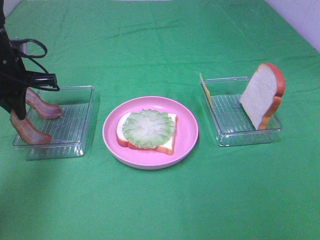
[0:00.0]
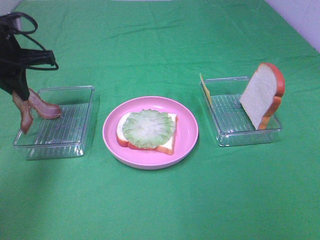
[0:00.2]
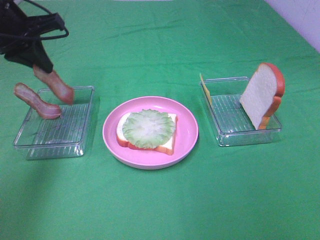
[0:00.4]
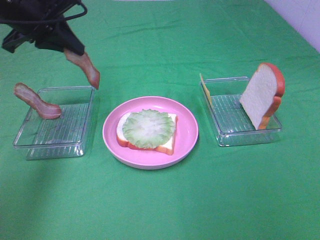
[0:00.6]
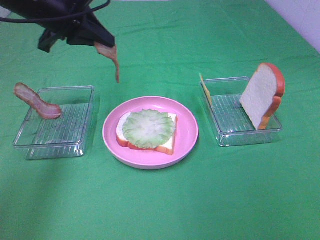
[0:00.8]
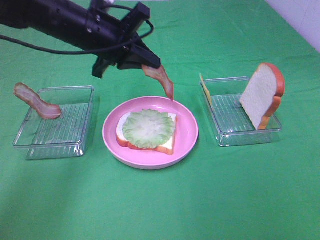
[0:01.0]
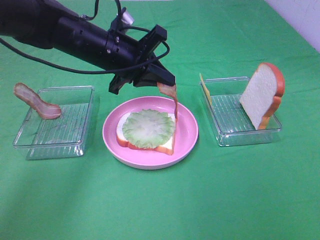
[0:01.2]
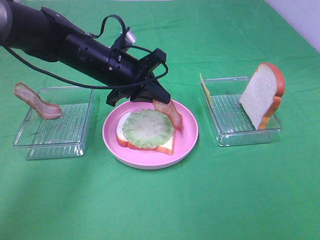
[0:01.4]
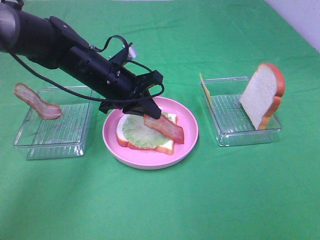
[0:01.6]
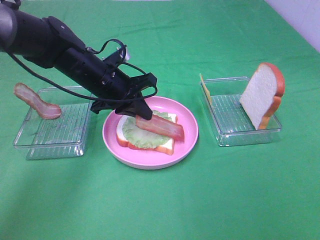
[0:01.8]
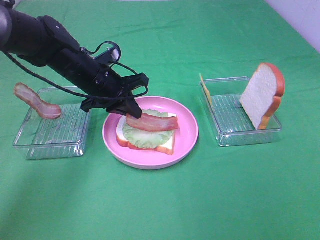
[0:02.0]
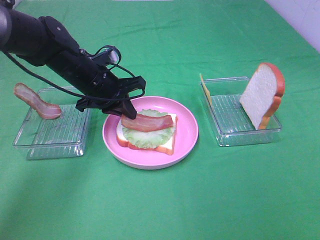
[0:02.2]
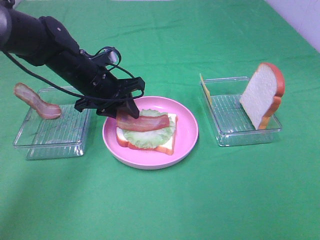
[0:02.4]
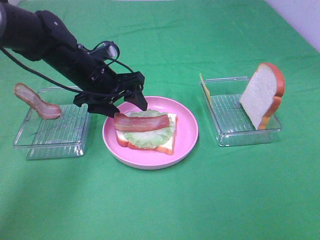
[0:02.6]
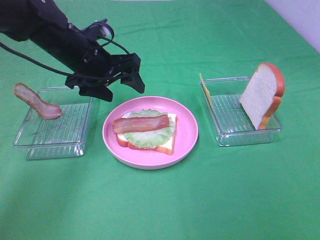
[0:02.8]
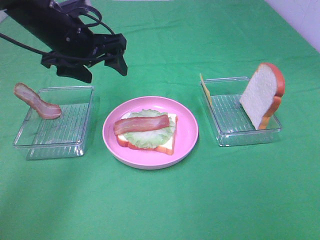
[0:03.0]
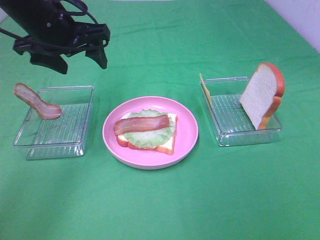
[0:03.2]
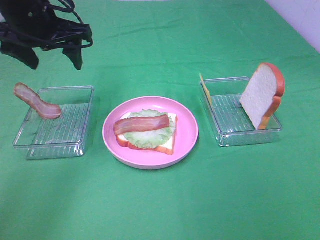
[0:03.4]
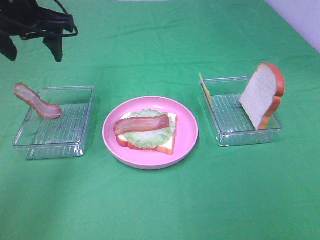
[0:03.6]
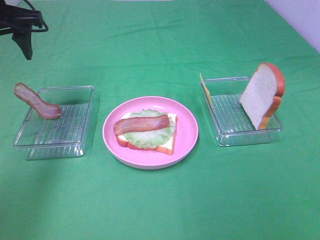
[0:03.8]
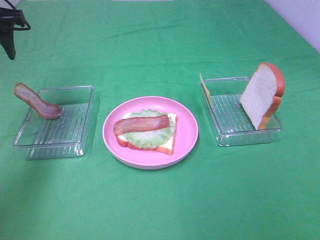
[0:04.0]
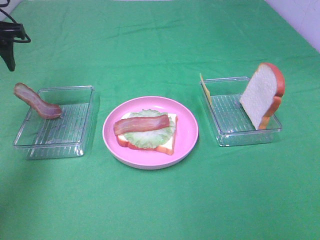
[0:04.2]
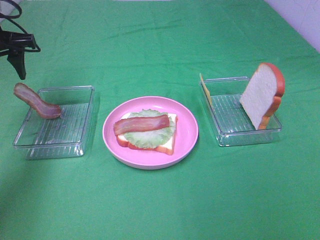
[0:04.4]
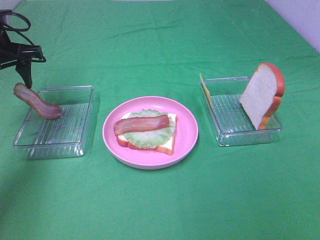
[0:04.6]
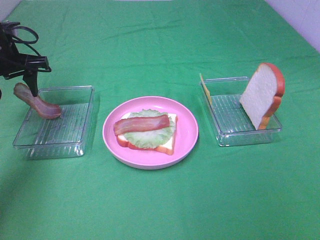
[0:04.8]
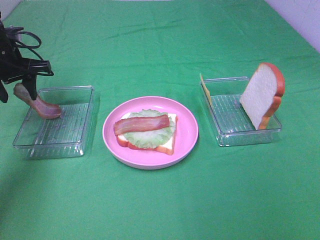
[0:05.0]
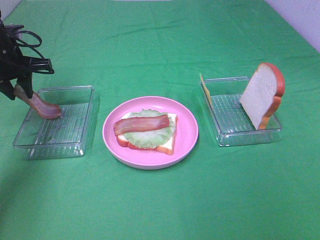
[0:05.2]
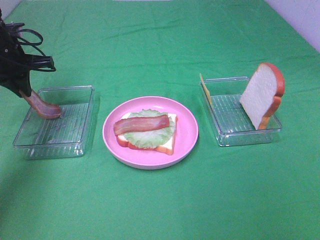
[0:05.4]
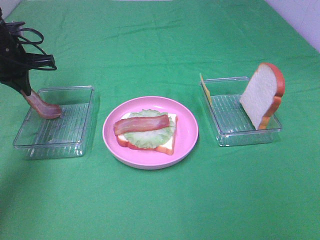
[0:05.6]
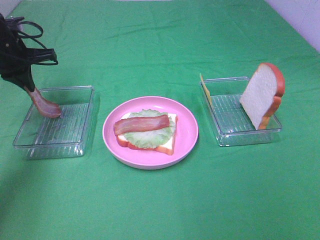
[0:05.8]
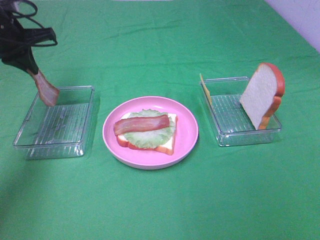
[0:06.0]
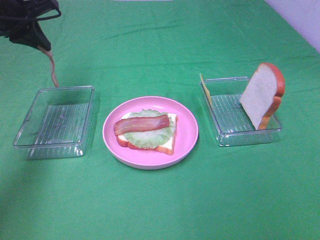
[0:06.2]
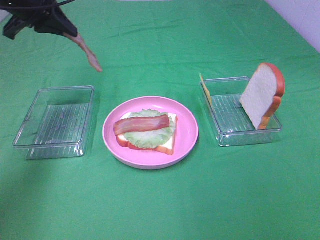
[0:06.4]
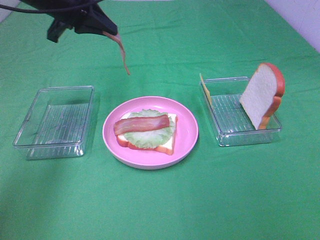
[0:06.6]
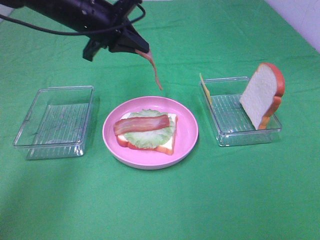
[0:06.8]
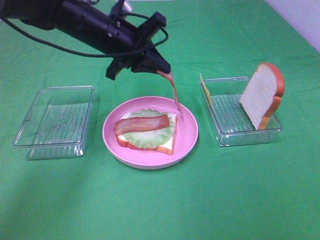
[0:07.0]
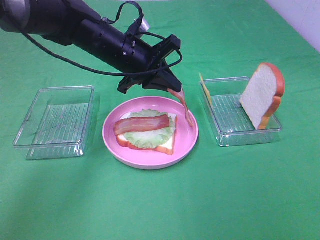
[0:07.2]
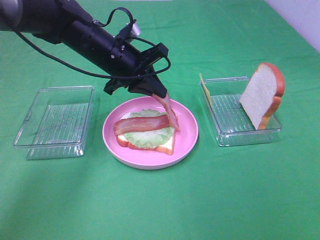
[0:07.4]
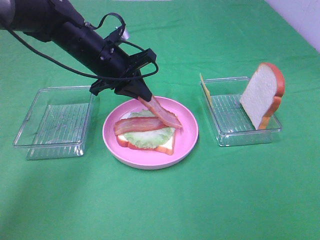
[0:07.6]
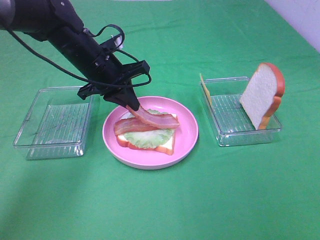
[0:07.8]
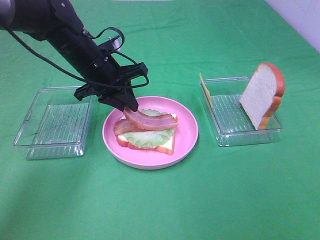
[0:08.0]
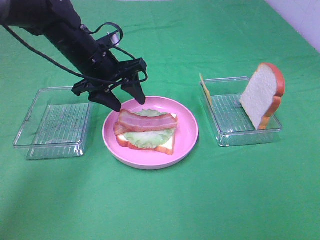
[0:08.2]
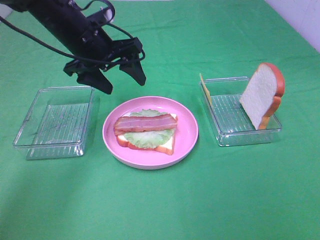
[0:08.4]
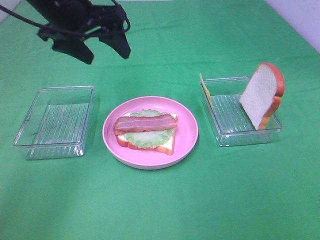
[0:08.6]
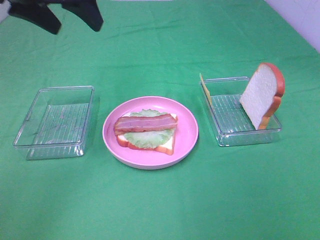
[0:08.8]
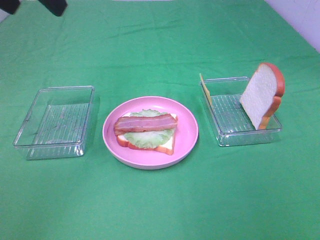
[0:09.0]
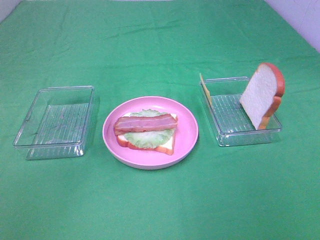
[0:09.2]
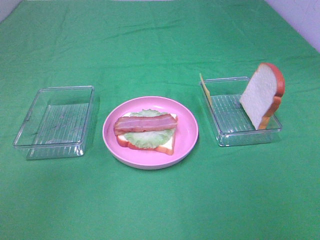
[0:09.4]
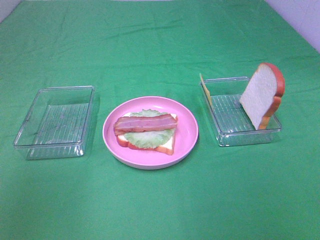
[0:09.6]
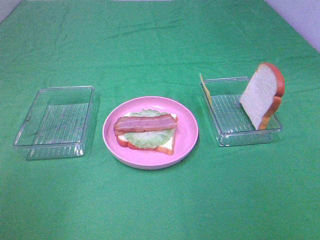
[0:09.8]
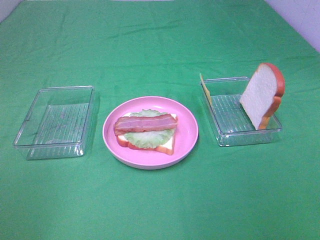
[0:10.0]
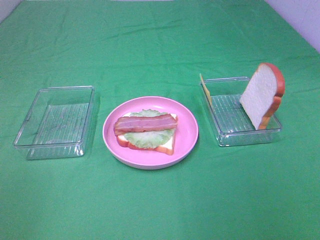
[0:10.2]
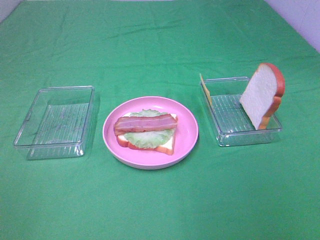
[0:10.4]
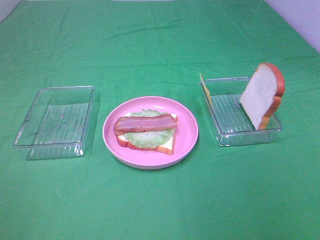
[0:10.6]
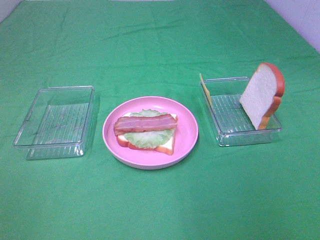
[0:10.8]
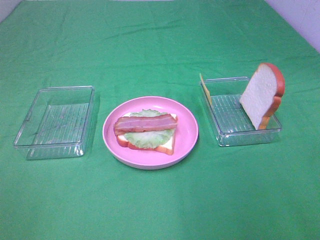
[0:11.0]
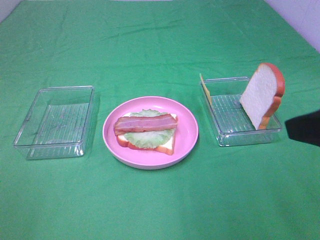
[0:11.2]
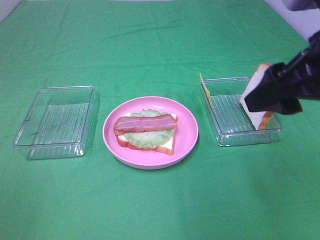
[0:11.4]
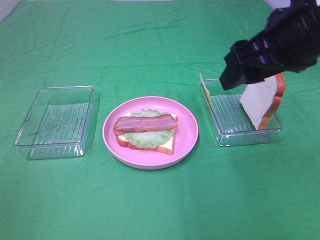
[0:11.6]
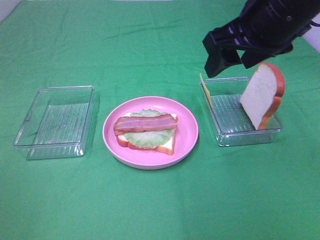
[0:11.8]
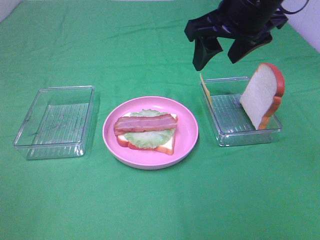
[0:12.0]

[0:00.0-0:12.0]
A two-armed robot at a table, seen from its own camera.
Task of the whole recording: Make sandwiches.
Step, 0:00.0 to 0:02.8: Left hand:place bacon on lettuce slice.
Step, 0:03.0 to 0:05.6: Left hand:grab the bacon.
Step, 0:05.8 to 0:08.2: Left hand:place bacon on bacon.
0:00.0 to 0:01.6: The left gripper is displaced to the right by approximately 15 cm.
0:01.6 to 0:03.0: The left gripper heads upward and to the left, covering some 10 cm, and opens its fingers.
0:03.0 to 0:04.4: The left gripper travels to the left by some 15 cm.
0:04.4 to 0:06.0: The left gripper closes up.
0:06.0 to 0:07.6: The left gripper shifts about 15 cm to the right.
0:07.6 to 0:09.0: The left gripper travels upward and backward by roughly 25 cm, and opens its fingers.
0:09.0 to 0:10.4: The left gripper moves backward and to the left, approximately 35 cm.
0:10.4 to 0:12.0: The right gripper goes about 40 cm forward and to the left.

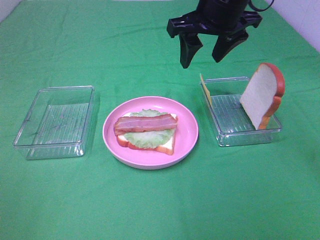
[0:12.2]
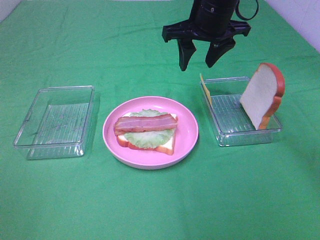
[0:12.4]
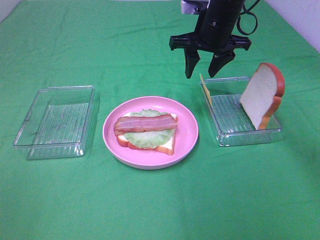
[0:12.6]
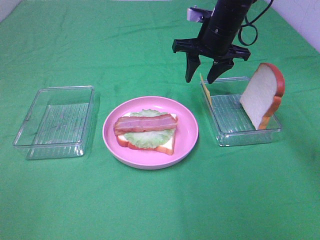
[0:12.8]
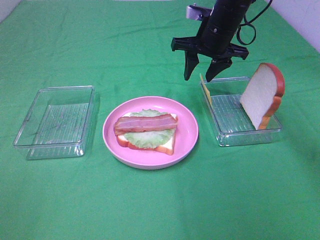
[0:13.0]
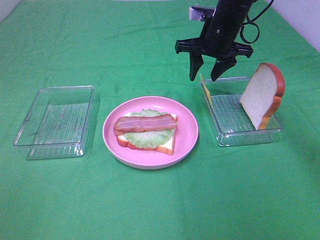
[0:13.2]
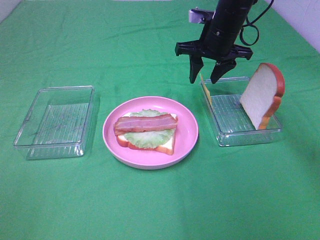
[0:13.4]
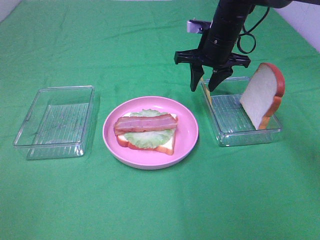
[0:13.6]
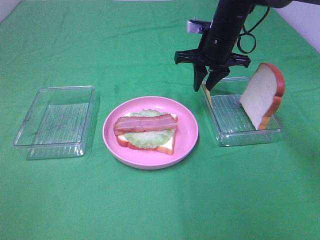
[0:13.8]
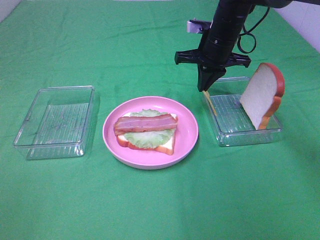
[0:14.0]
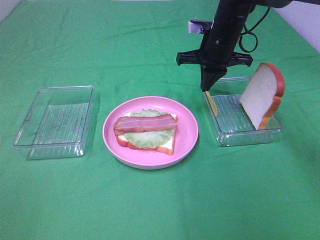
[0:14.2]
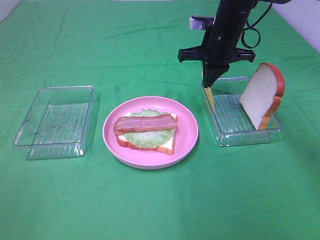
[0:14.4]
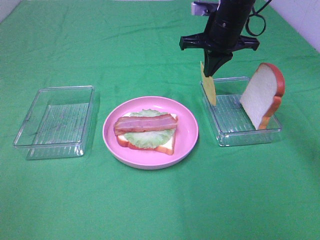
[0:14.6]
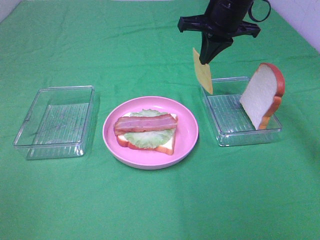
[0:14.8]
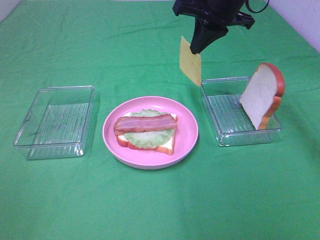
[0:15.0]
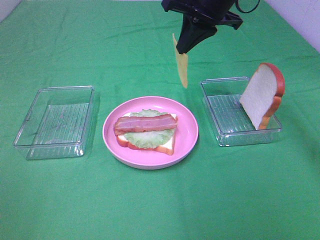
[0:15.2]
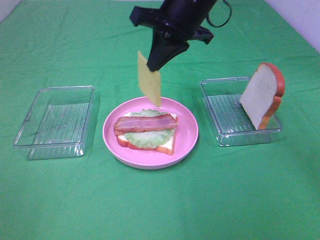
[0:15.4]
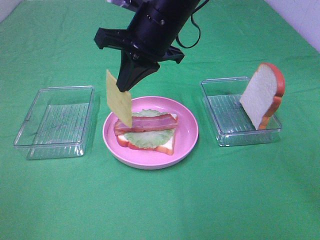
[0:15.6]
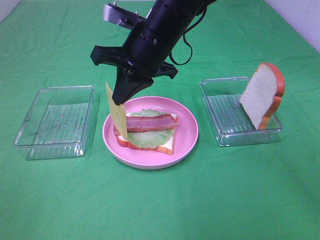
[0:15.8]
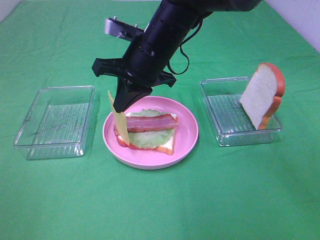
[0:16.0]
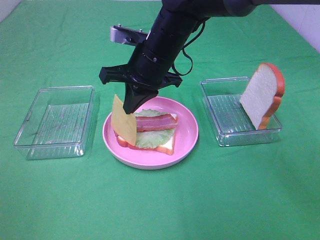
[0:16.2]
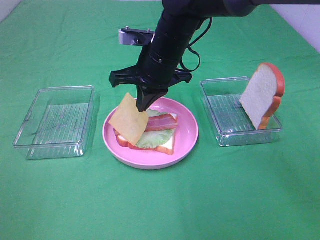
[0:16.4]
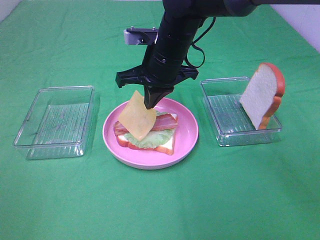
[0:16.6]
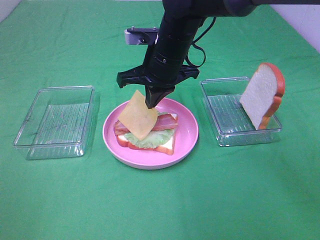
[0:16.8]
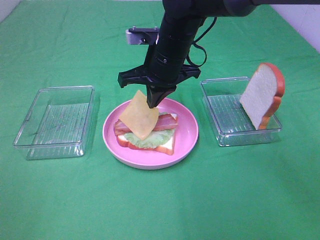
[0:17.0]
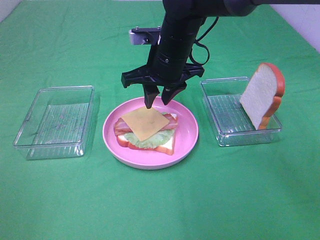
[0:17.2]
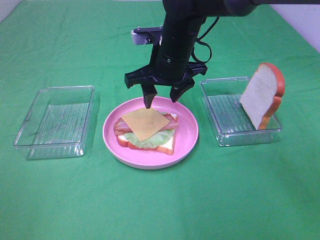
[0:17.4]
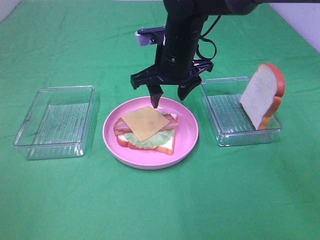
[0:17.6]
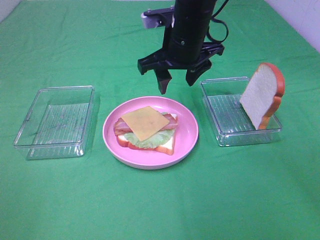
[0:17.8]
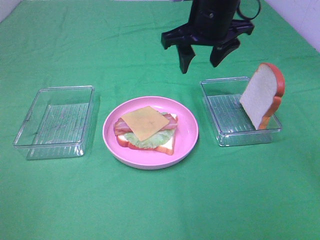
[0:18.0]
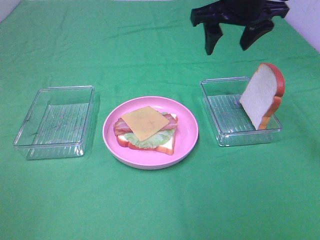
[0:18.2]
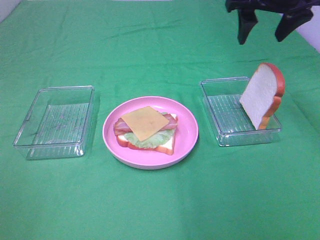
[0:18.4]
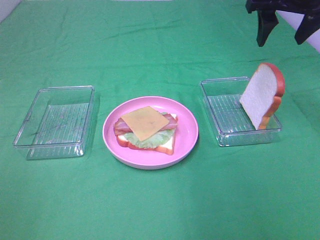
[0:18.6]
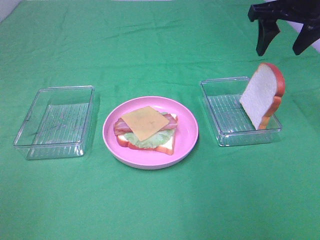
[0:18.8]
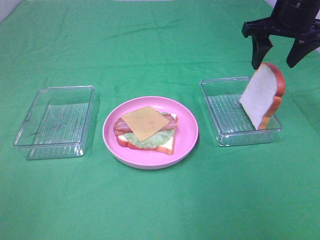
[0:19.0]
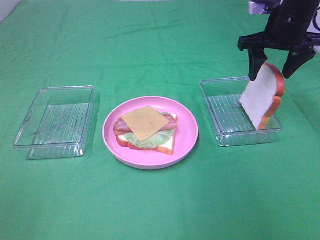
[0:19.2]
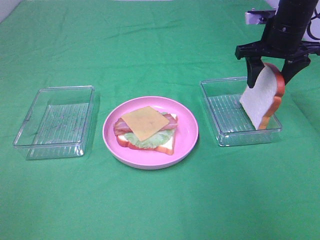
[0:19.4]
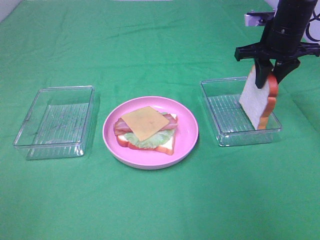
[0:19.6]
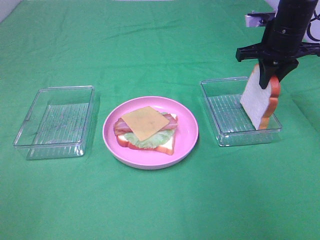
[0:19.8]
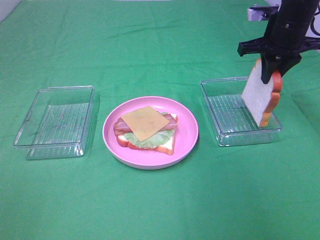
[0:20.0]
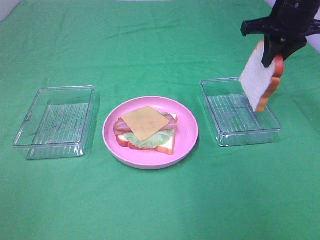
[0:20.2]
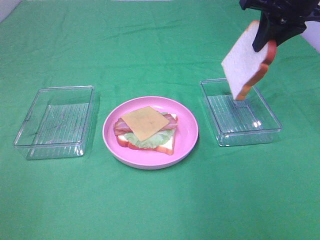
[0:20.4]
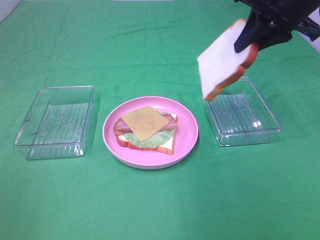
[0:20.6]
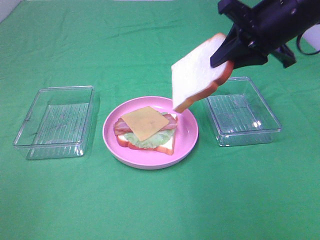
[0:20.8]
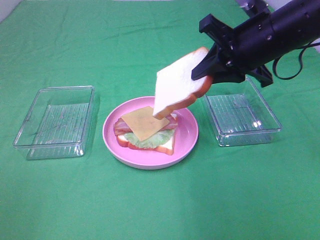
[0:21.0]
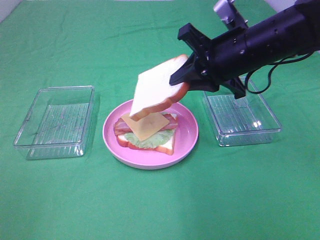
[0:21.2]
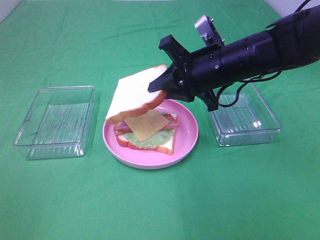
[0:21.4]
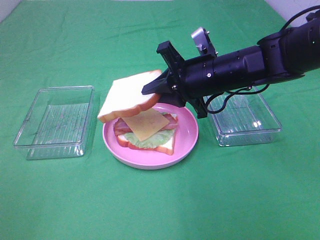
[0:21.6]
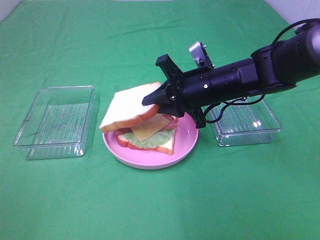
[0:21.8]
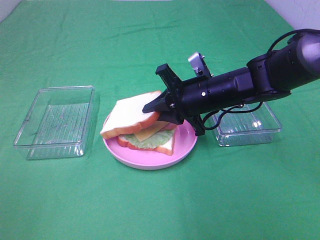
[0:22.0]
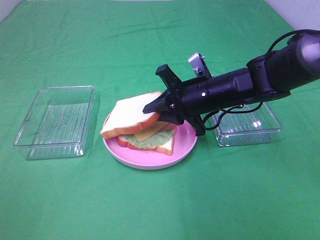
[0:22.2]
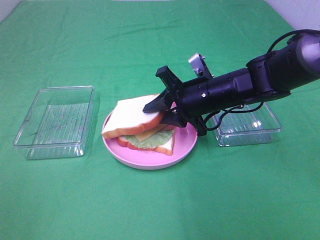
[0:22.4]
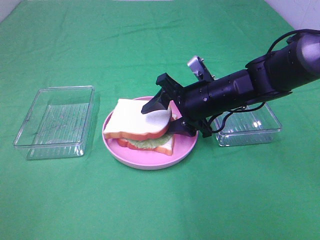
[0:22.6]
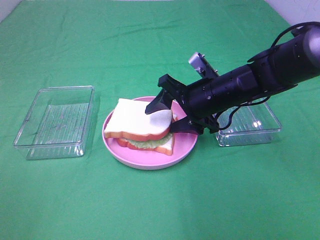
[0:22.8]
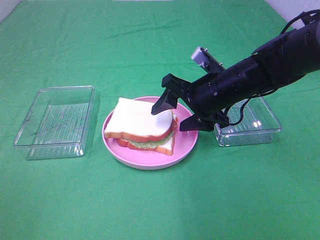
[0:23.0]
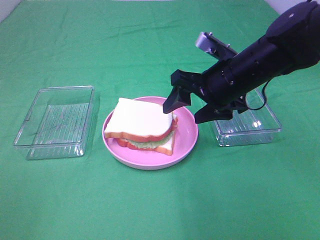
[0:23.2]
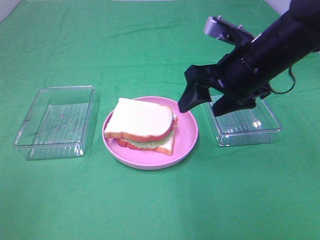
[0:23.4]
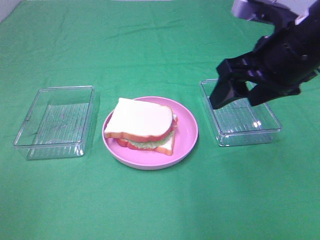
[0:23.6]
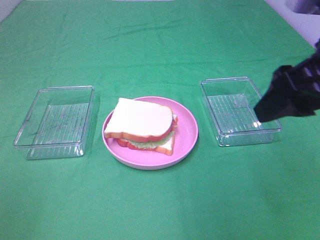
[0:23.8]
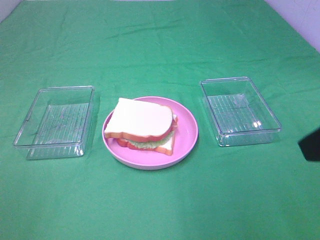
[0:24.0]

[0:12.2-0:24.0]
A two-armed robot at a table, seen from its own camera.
Task of the whole recording: Make sandwiches.
Step, 0:12.2 to 0:14.2: Right hand:grab the cheese slice.
Step, 0:14.4 to 0:17.2: Right hand:place the cheese slice on top of the bacon.
Step, 0:17.4 to 0:19.8: Right hand:grab the bread slice.
Step, 0:20.0 to 0:23.4: Right hand:place the bread slice on the cheese slice.
0:12.2 to 0:13.6: The right gripper shifts some 15 cm downward and forward.
0:13.6 to 0:15.2: The right gripper travels upward by some 10 cm, and closes.
0:15.2 to 0:16.6: The right gripper moves downward and to the left, some 15 cm.
0:16.6 to 0:18.2: The right gripper travels to the right and upward by some 15 cm, and opens its fingers.
0:18.2 to 0:19.6: The right gripper moves to the right and downward, some 10 cm, and closes its fingers.
0:19.6 to 0:21.0: The right gripper heads backward and to the left, covering about 15 cm.
0:21.0 to 0:22.6: The right gripper heads downward, covering about 15 cm, and opens.
0:22.6 to 0:24.0: The right gripper travels backward, upward and to the right by some 30 cm.
